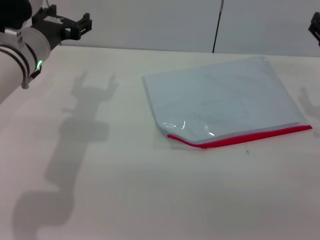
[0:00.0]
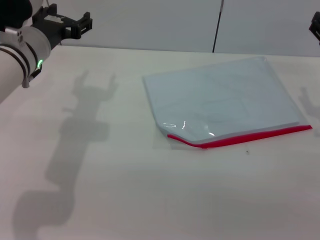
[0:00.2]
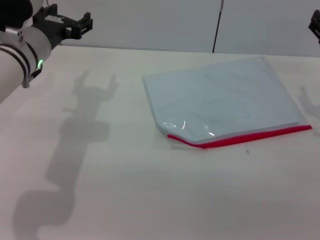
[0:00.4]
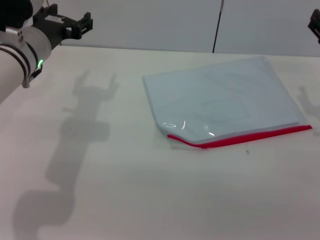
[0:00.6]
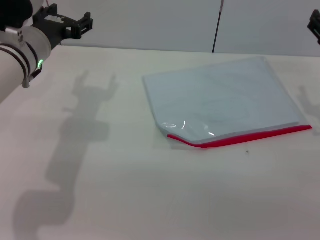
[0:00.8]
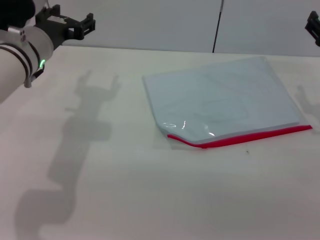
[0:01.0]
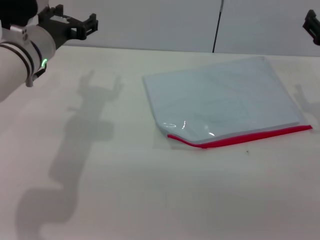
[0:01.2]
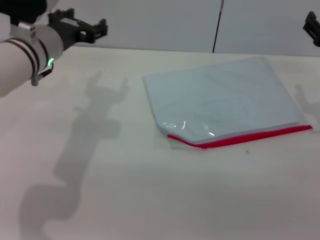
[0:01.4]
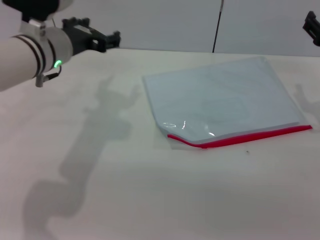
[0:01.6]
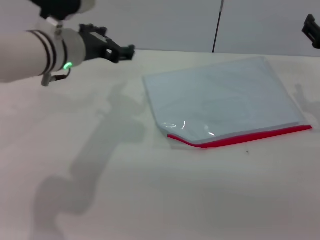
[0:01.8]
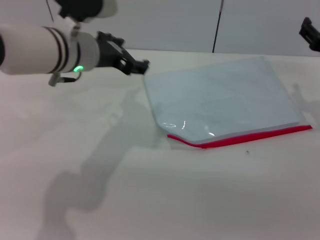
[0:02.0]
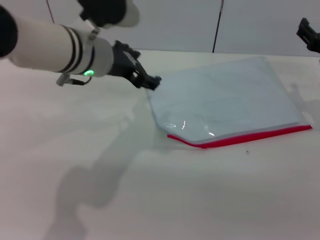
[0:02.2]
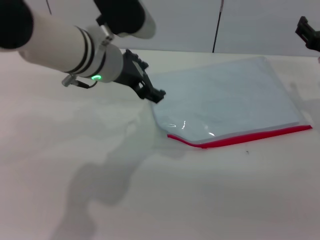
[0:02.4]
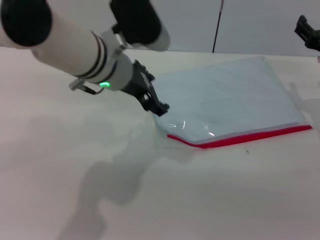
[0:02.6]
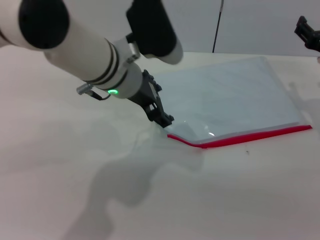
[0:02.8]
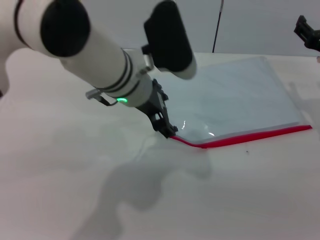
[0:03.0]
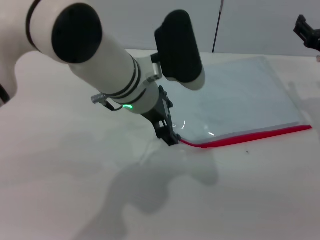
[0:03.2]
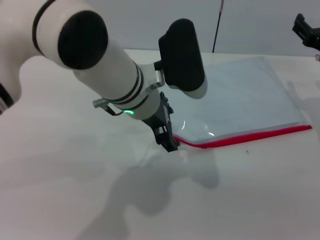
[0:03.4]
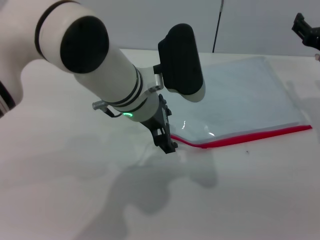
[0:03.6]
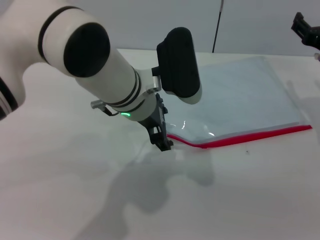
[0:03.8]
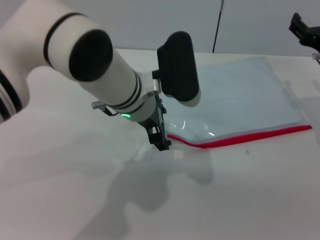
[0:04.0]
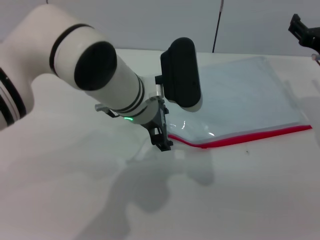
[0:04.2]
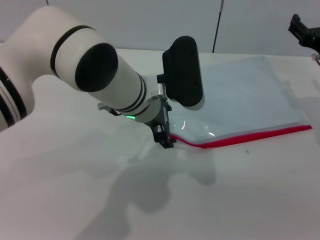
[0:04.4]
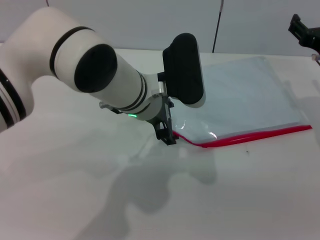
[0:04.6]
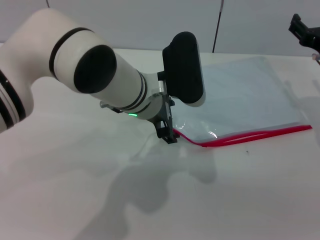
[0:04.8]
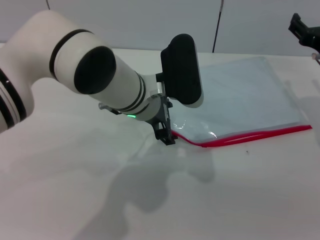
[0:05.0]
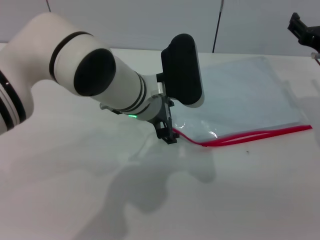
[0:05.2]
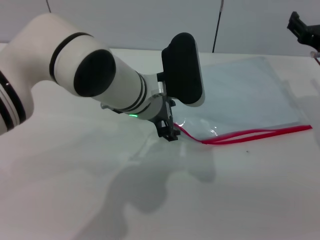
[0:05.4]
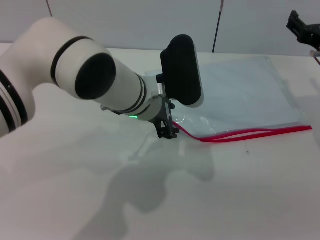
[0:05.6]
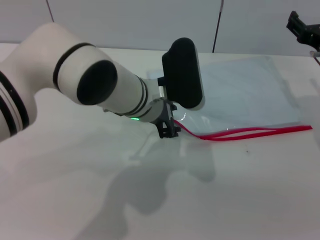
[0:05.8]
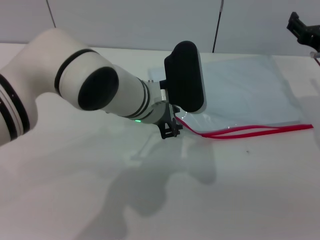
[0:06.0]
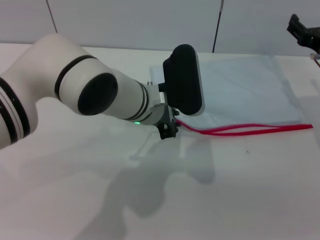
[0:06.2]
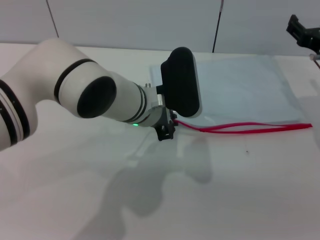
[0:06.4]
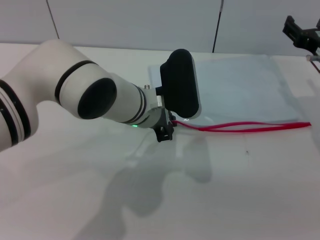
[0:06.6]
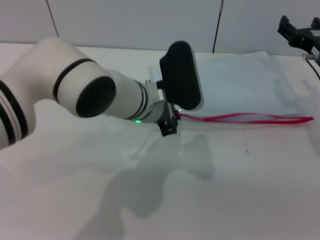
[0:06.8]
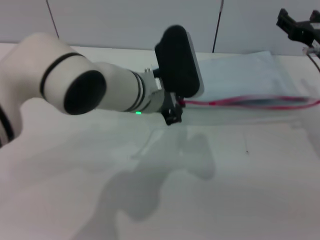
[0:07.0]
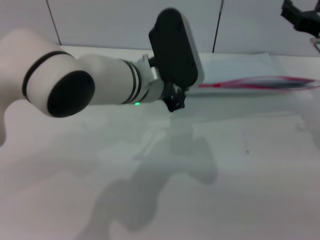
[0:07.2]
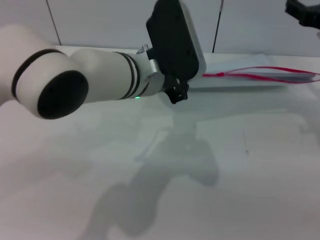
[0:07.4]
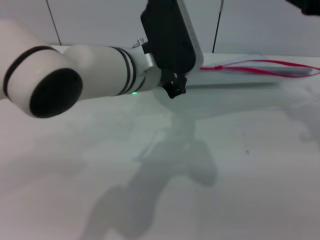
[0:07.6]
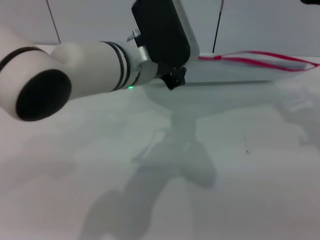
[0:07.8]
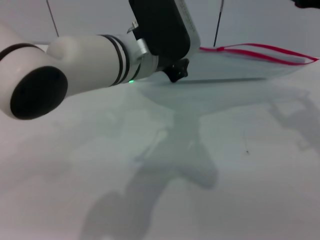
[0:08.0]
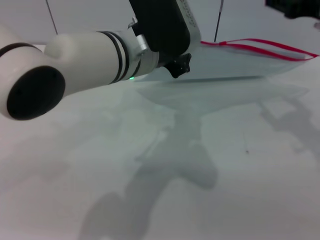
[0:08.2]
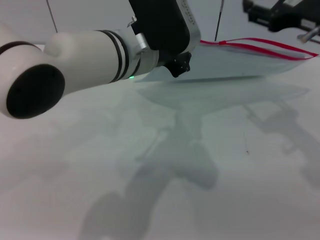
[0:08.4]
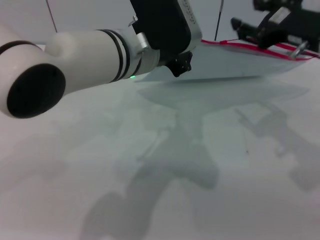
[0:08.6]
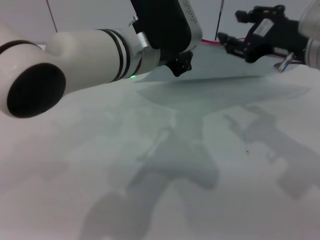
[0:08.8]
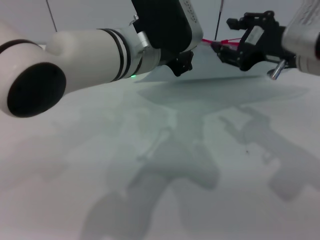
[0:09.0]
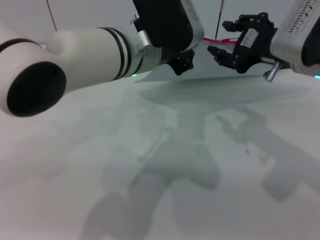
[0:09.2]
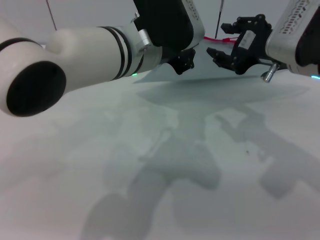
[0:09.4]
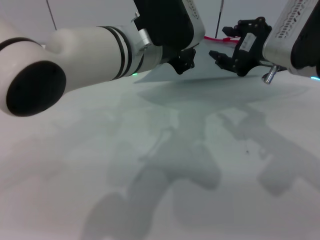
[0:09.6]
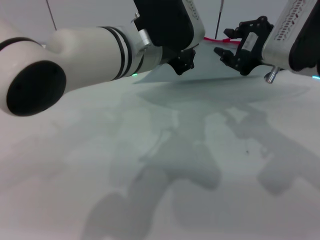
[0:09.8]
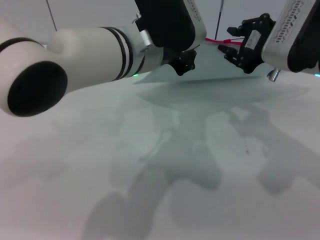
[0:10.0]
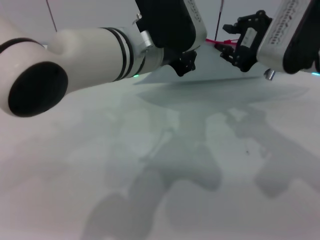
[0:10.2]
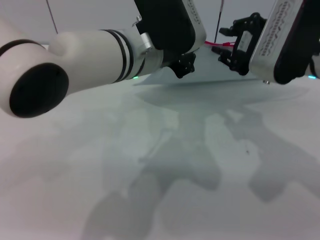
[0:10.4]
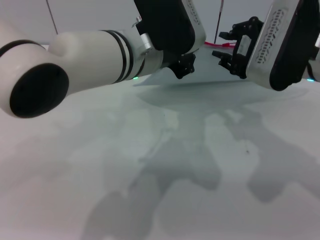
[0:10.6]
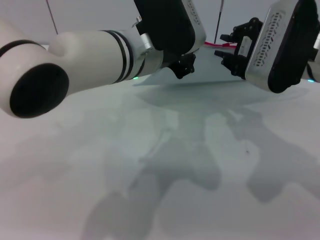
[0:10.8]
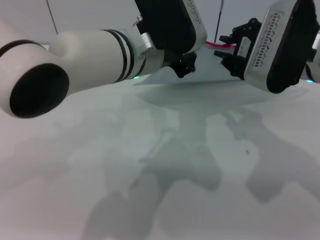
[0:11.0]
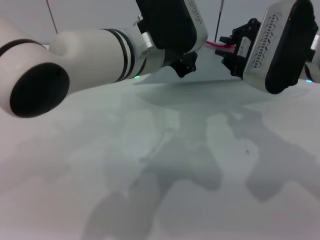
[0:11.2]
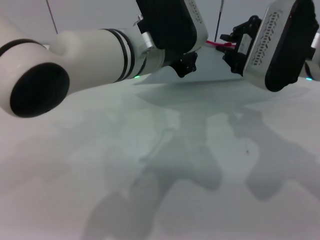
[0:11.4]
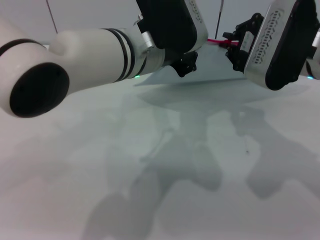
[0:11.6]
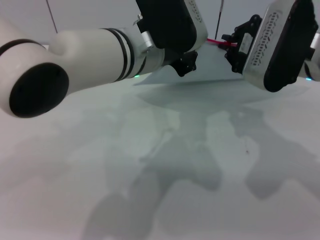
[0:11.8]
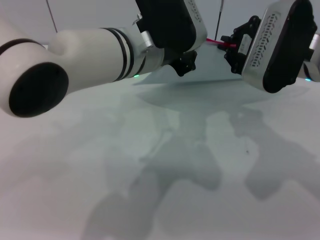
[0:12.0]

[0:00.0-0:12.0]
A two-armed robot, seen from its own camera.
Step, 0:00.0 to 0:08.8: Pick up the transparent plastic bag with the left gripper.
0:00.0 to 0:01.6: The grippers move only a little.
0:01.6 to 0:03.0: The left gripper shifts about 10 cm to the right.
0:04.4 to 0:06.0: There are only small adjustments of the grippers.
0:06.0 to 0:07.6: The left gripper heads upward, covering some 5 cm, and closes up; the right gripper shifts approximately 10 cm upward.
0:07.6 to 0:09.0: The right gripper moves to the left, about 5 cm, and closes its fingers.
0:09.0 to 0:10.4: There are only small adjustments of the grippers.
0:10.4 to 0:12.0: The grippers make only small movements.

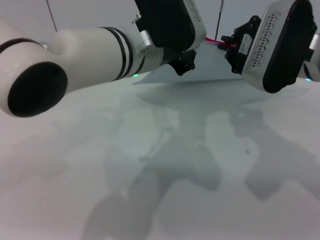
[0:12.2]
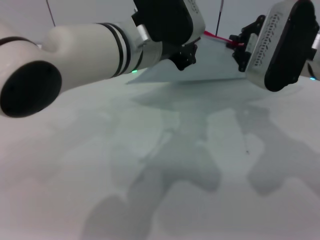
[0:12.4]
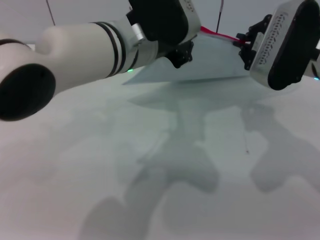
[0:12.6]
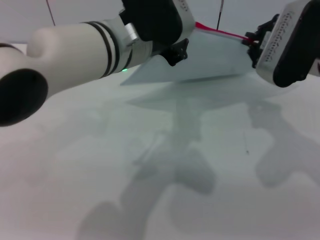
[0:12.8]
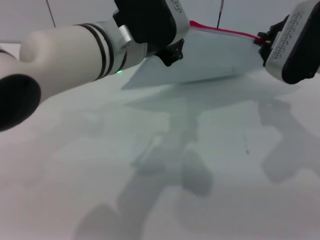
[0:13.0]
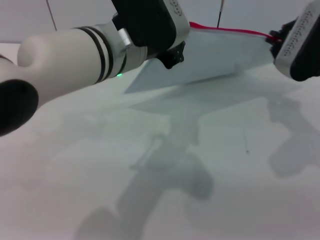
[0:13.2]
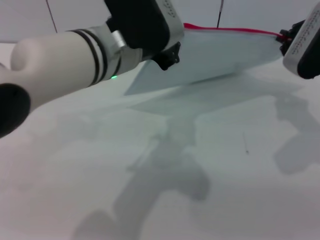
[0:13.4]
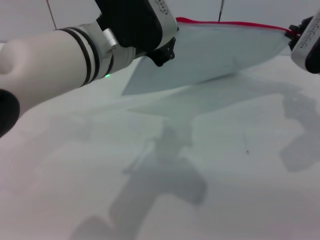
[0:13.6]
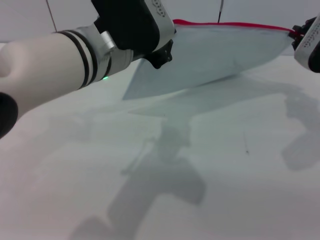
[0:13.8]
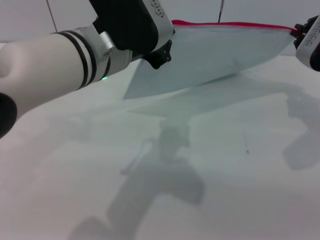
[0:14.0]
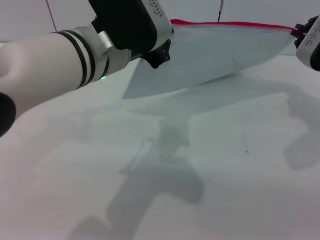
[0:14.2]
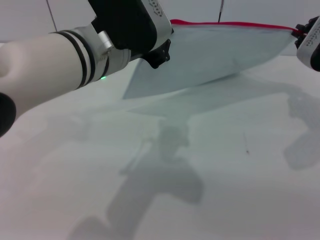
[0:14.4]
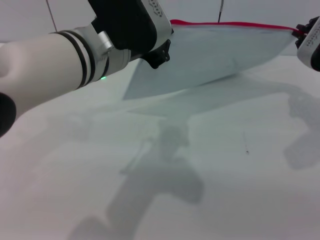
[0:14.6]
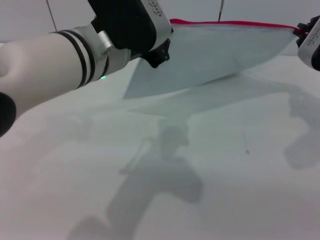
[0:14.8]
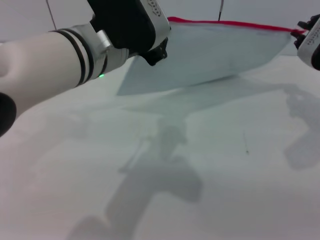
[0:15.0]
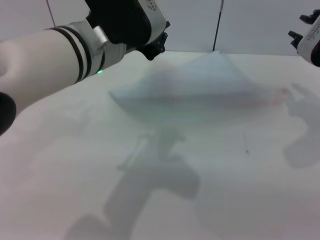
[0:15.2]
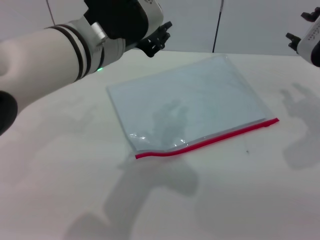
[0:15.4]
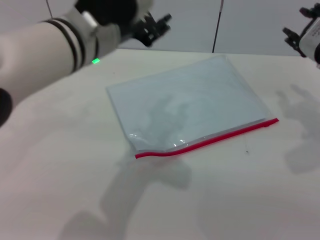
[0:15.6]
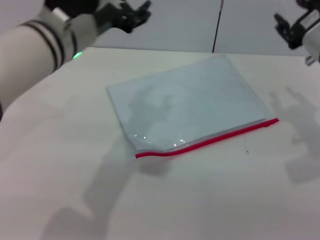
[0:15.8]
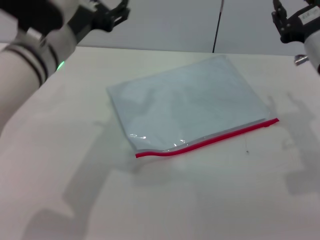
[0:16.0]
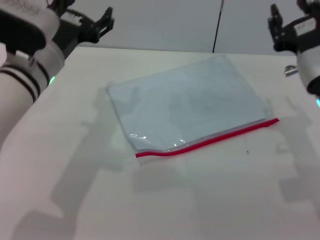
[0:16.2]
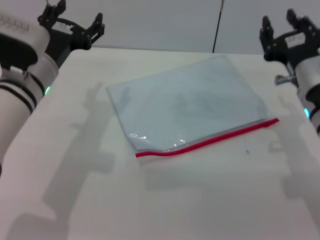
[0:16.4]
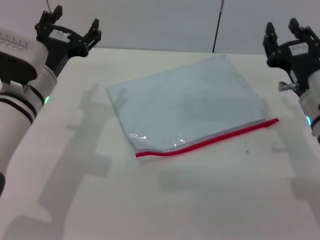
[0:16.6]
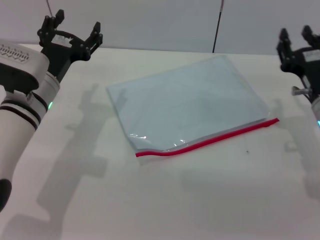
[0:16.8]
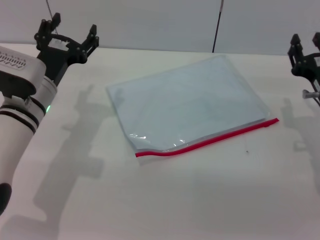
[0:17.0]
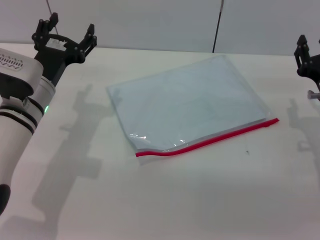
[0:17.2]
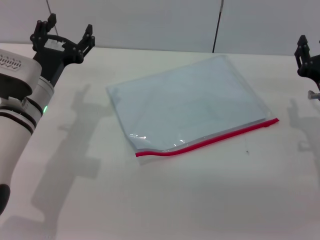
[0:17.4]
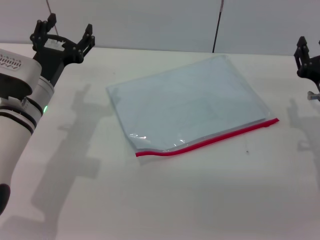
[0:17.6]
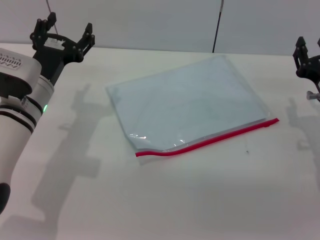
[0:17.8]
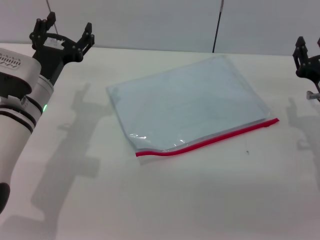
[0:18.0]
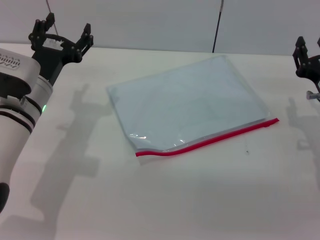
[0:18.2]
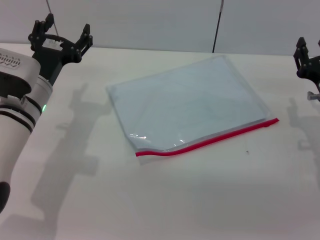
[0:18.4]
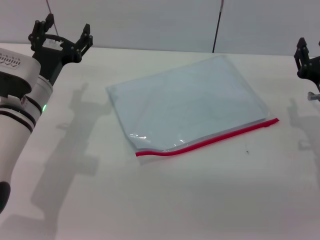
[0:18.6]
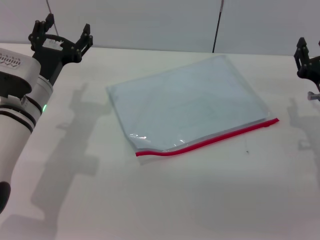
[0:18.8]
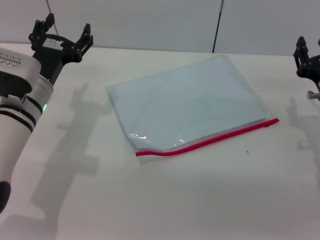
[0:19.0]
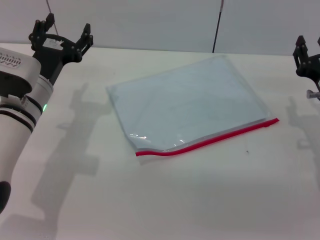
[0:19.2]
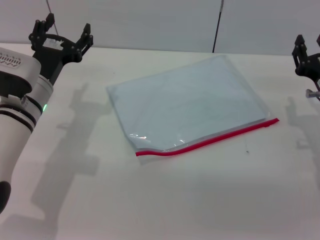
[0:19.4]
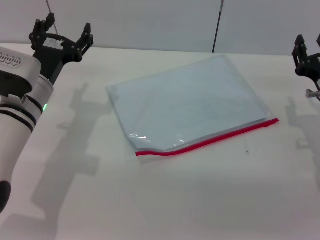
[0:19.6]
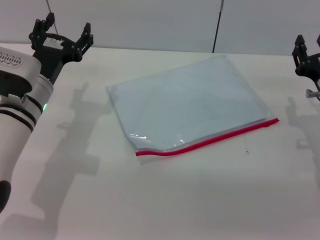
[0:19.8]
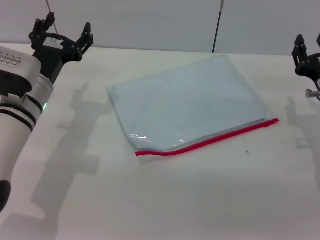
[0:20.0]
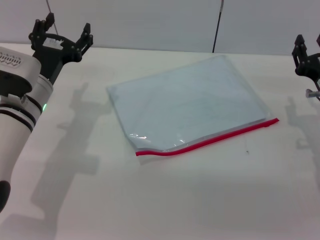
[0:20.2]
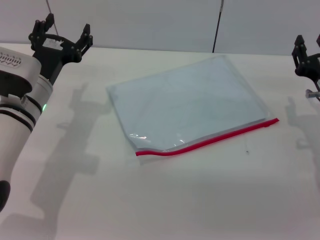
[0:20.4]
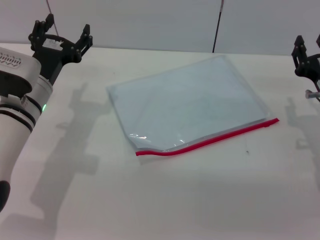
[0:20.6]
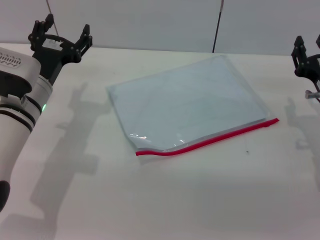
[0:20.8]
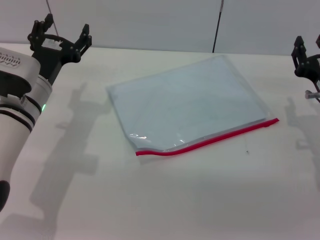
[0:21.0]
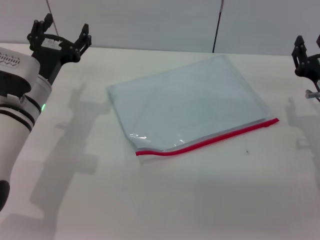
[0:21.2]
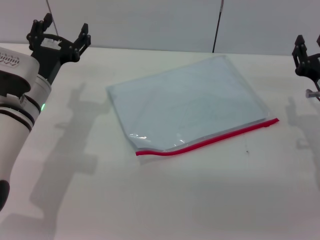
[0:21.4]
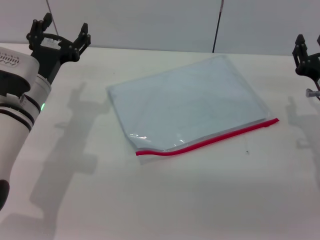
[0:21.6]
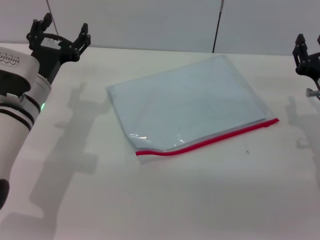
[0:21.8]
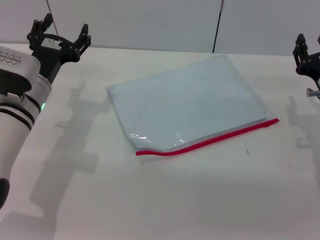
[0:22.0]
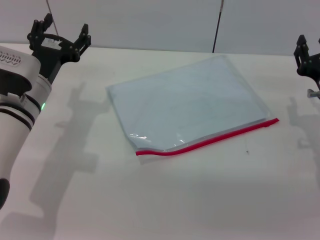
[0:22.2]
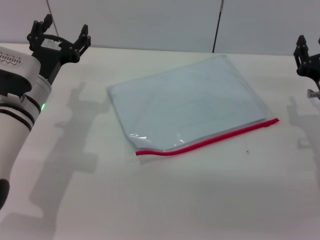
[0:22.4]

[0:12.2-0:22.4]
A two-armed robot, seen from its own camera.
Step, 0:12.2 to 0:14.8: Pulling up the zipper on the transparent plastic bag with the right gripper to close it.
Step, 0:15.0 to 0:16.0: Place the transparent plastic bag.
0:12.2 to 0:13.6: The right gripper moves to the right, some 10 cm.
0:13.6 to 0:15.2: The two grippers keep their place.
0:15.2 to 0:16.6: The right gripper is displaced downward and backward by approximately 10 cm, and opens up. Meanwhile the left gripper goes approximately 15 cm downward and to the left, and opens up.
0:16.6 to 0:18.0: The right gripper shifts by about 5 cm.
0:18.0 to 0:22.4: The two grippers keep their place.
